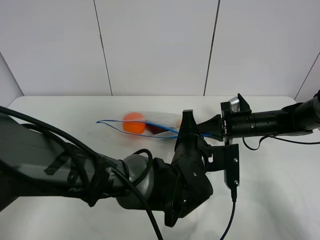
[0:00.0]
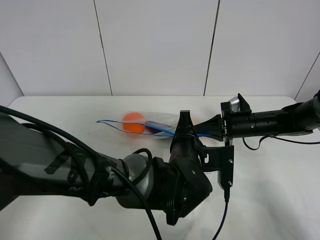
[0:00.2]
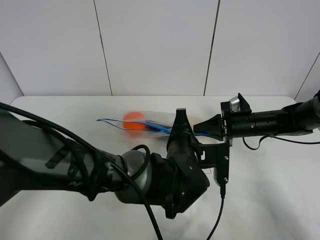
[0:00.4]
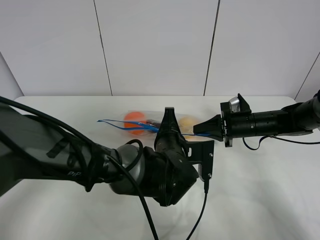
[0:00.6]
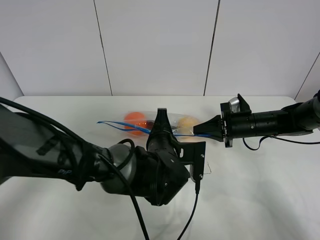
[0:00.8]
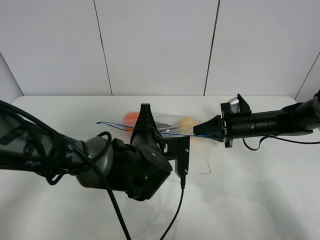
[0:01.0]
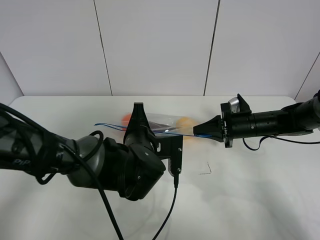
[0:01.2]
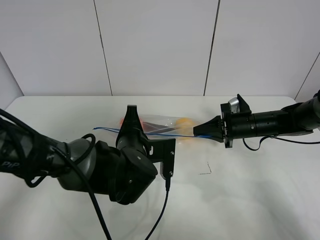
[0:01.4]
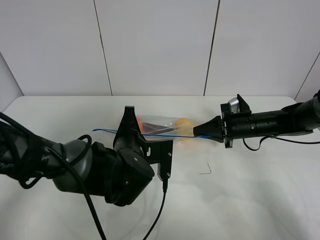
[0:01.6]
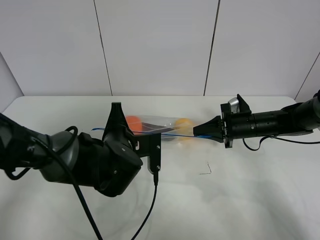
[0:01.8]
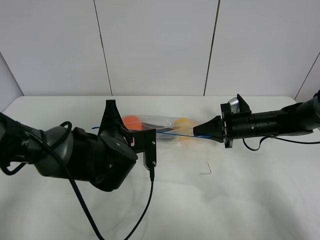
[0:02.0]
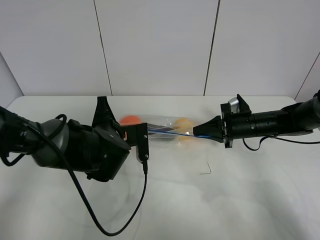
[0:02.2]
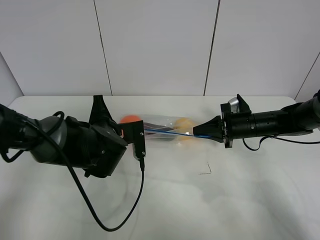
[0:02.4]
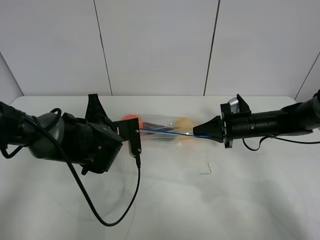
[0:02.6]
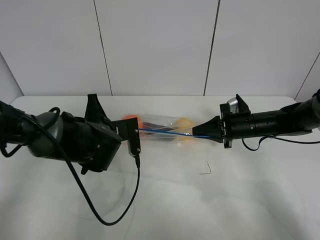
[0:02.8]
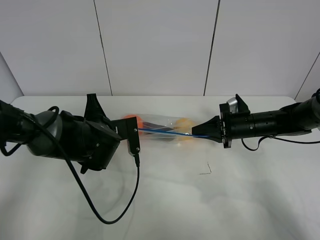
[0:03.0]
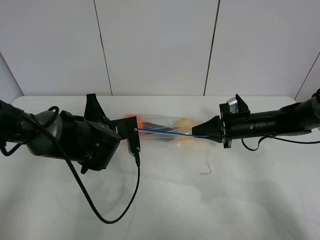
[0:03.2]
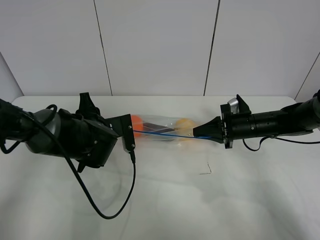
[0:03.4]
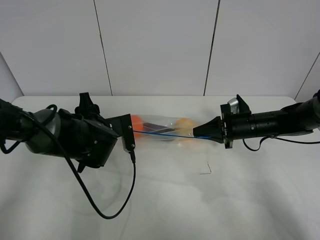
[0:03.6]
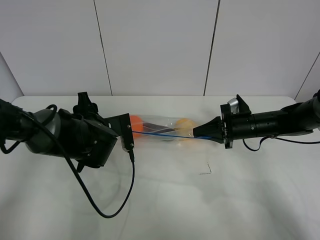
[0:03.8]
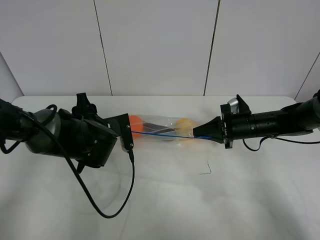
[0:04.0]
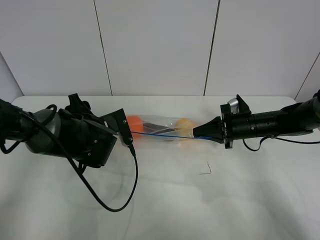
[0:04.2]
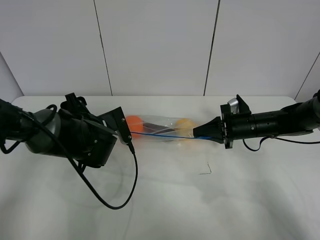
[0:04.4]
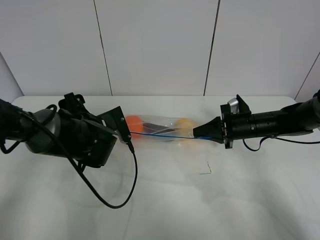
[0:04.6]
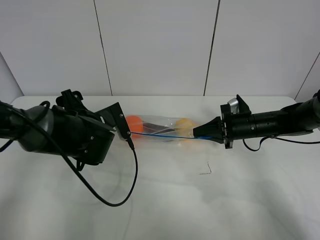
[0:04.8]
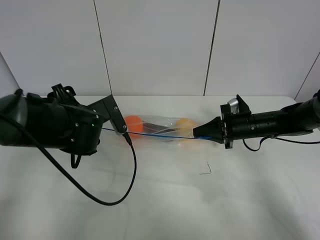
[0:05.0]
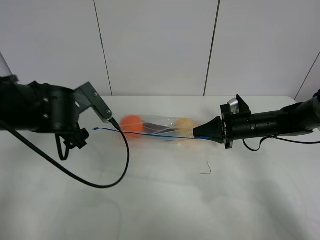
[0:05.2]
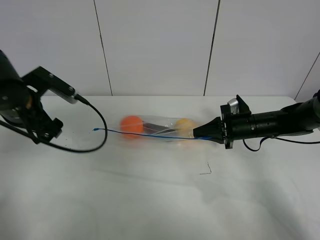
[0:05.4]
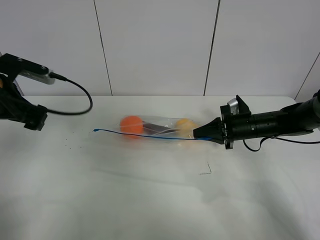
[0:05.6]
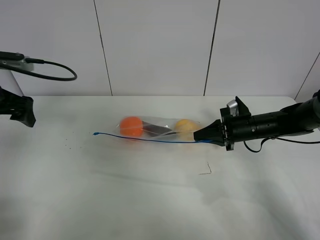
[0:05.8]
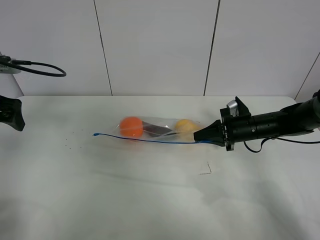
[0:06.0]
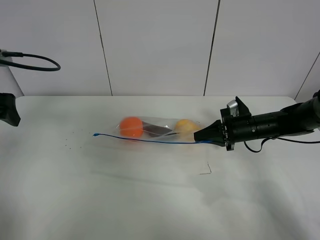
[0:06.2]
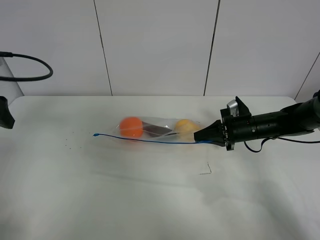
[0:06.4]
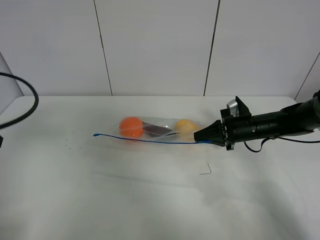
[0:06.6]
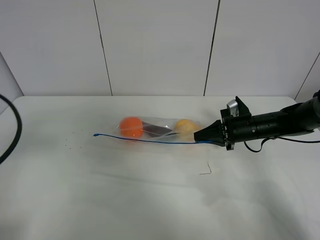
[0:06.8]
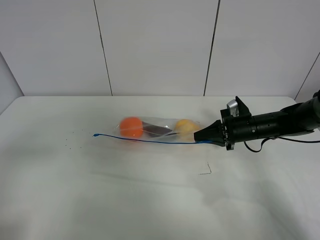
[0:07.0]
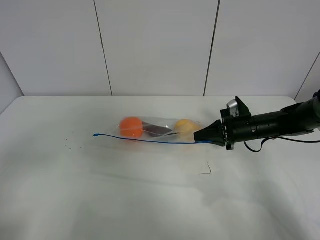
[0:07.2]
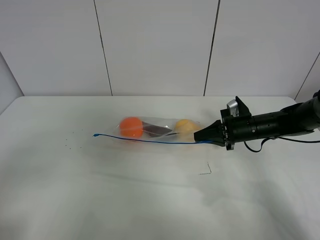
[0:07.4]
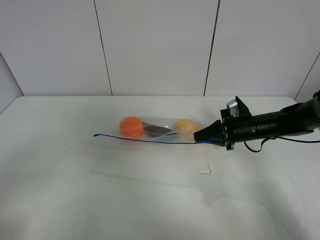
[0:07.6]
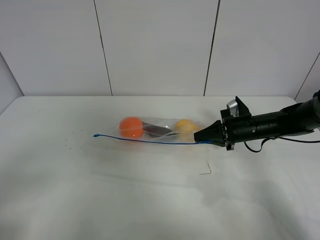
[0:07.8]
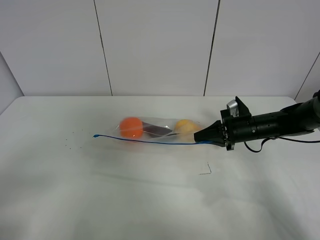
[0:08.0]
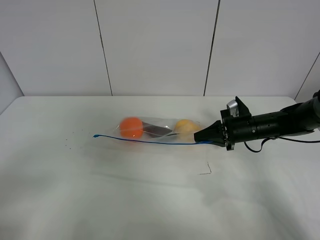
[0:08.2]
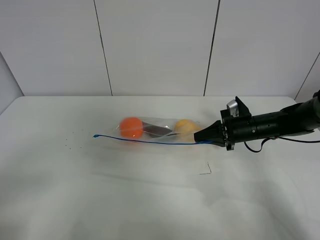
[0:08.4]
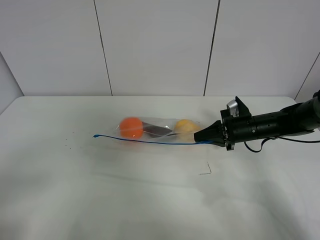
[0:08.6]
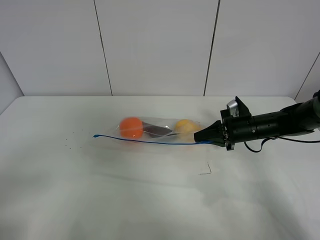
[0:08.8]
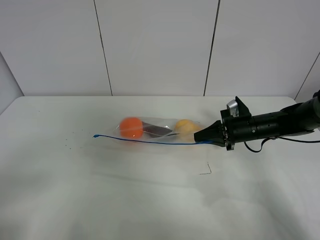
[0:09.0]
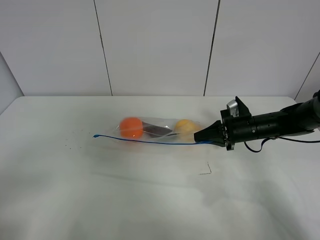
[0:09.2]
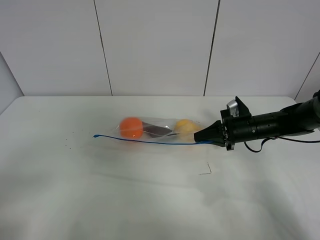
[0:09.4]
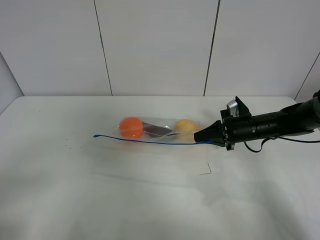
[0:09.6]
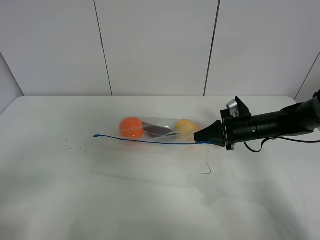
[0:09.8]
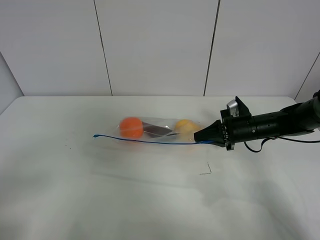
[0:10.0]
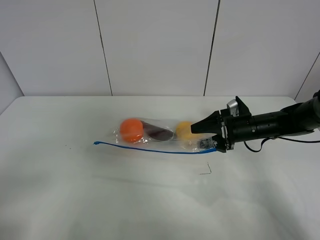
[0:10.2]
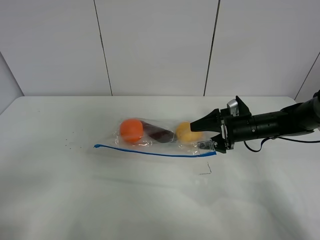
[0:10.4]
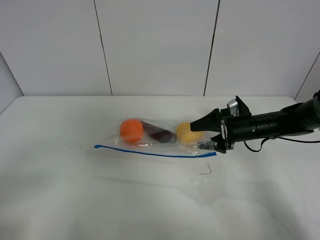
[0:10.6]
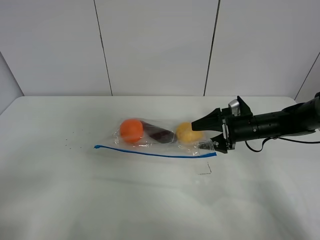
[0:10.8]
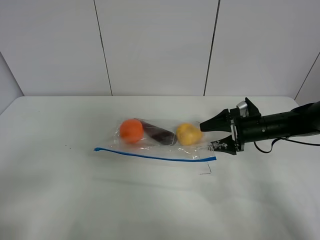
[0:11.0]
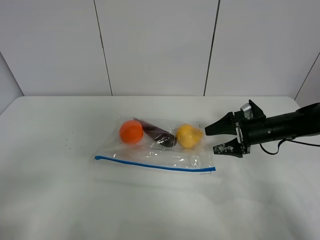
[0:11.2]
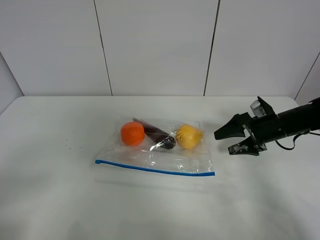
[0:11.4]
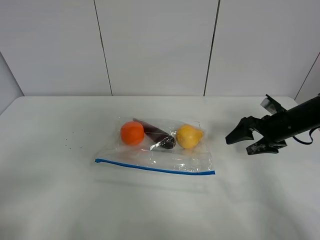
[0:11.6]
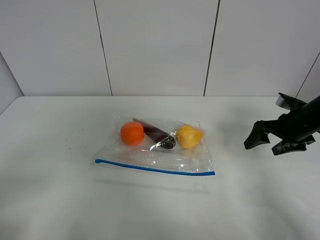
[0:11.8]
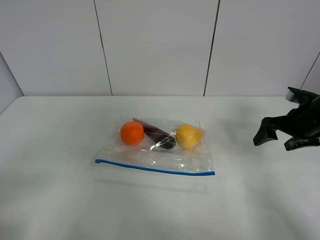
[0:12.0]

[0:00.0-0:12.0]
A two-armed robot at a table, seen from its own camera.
Step, 0:00.0 to 0:04.0: Pull the fruit bag with left gripper.
0:00.0 to 0:01.6: The left gripper heads to the left, covering approximately 10 cm.
0:01.6 to 0:03.0: The left gripper moves to the left, approximately 5 cm.
0:03.0 to 0:04.4: The left gripper opens.
0:04.4 to 0:06.0: The left gripper shifts some 25 cm to the left and upward.
0:06.0 to 0:07.6: The left gripper moves backward, approximately 30 cm.
0:09.0 to 0:10.4: The right gripper opens up.
0:10.4 to 0:12.0: The right gripper moves to the right and upward, roughly 15 cm.

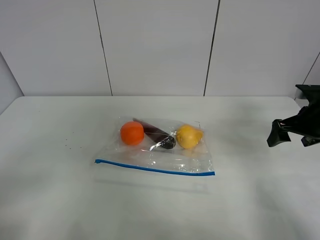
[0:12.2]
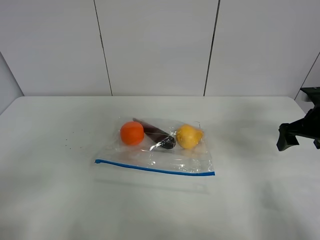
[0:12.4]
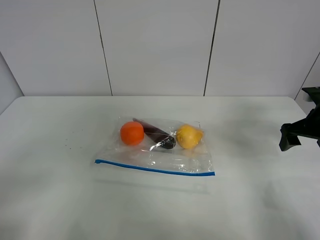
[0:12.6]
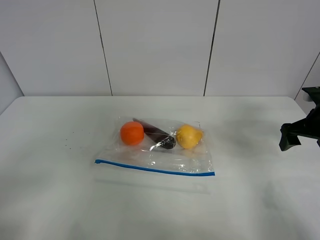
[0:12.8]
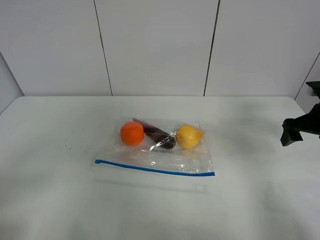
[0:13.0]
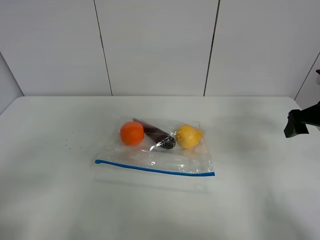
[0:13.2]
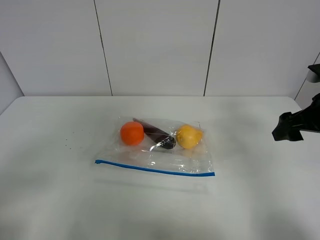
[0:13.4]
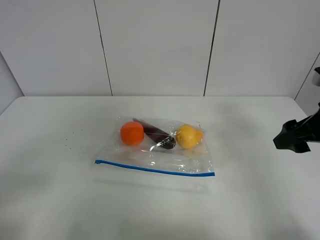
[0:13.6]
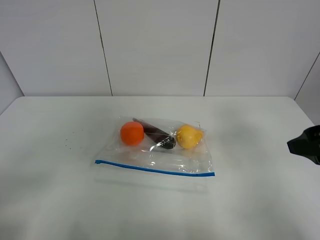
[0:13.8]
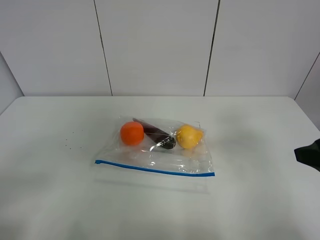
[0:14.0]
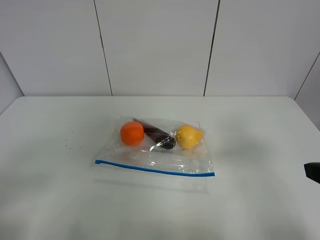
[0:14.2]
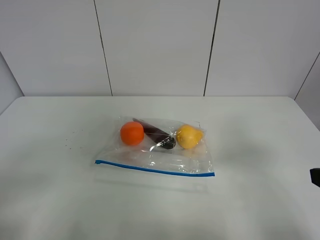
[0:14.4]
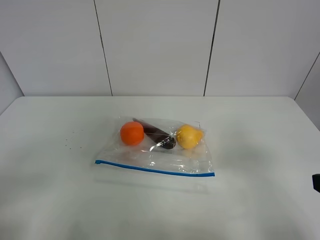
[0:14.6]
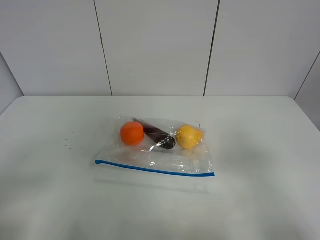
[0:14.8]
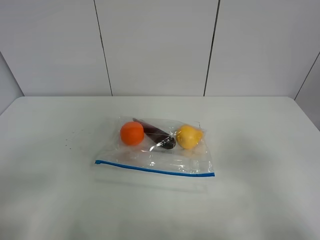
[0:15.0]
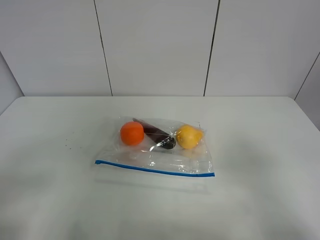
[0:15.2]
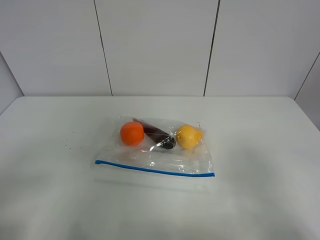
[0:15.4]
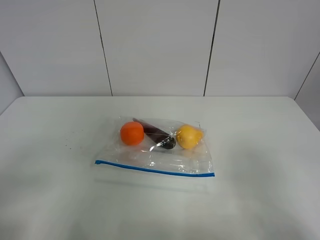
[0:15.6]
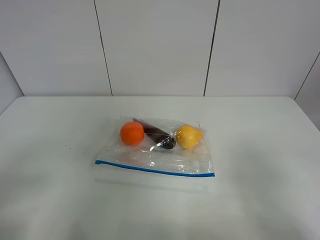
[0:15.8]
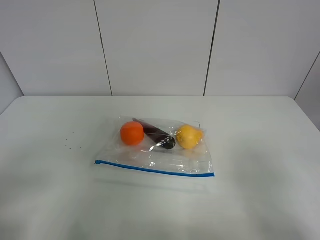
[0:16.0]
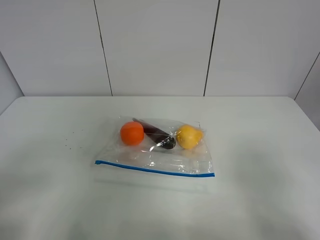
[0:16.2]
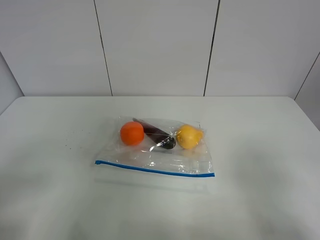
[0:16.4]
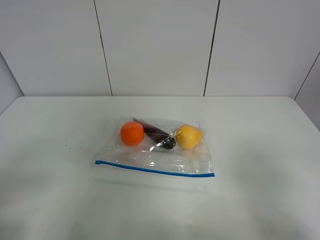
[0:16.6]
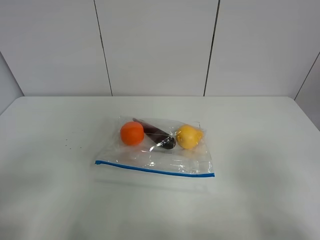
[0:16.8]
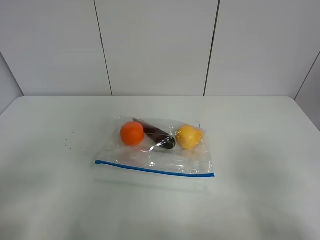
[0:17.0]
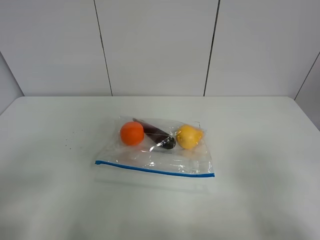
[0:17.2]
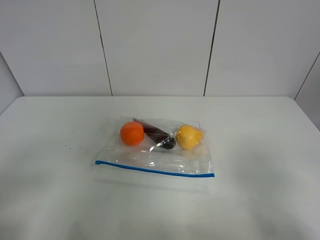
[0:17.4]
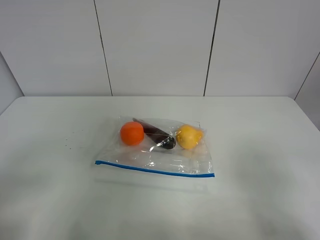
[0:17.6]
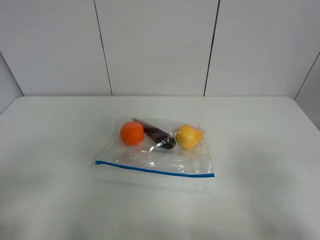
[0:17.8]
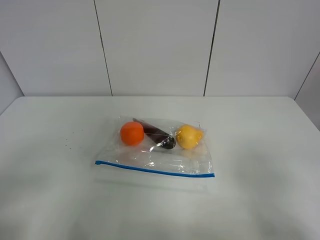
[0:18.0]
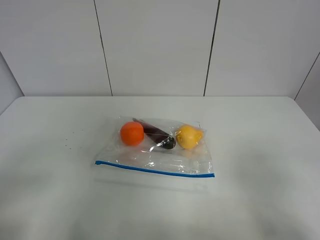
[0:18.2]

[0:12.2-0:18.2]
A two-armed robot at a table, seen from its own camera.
0:12.2 to 0:13.8: The right gripper goes some 20 cm backward and upward.
0:13.8 to 0:15.2: The right gripper shifts some 15 cm backward.
0:16.6 to 0:18.2: Neither gripper changes place.

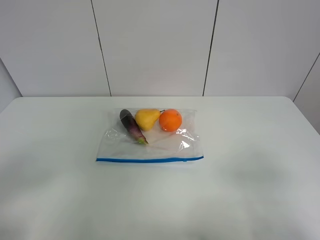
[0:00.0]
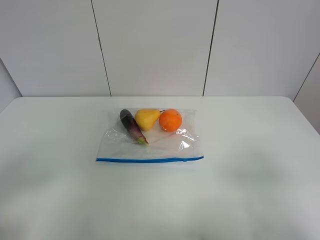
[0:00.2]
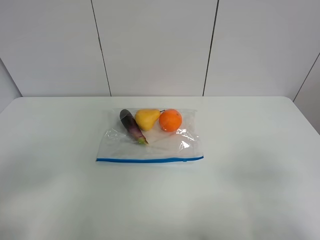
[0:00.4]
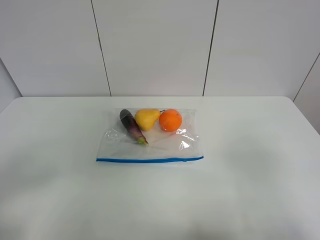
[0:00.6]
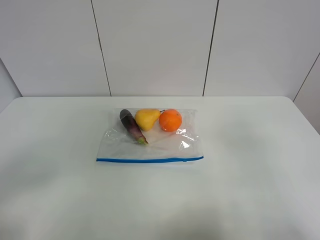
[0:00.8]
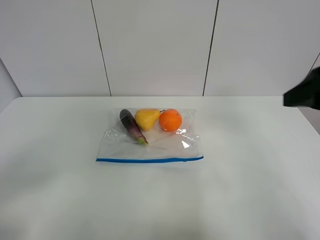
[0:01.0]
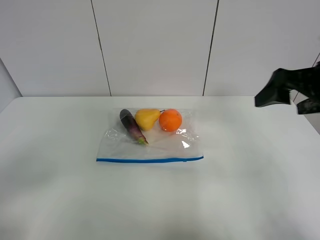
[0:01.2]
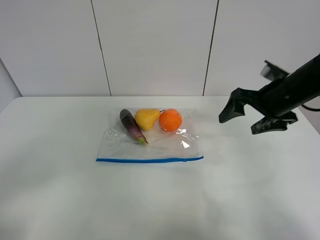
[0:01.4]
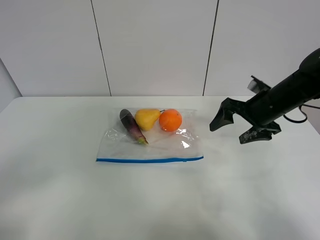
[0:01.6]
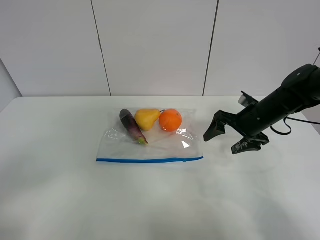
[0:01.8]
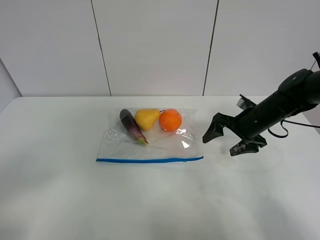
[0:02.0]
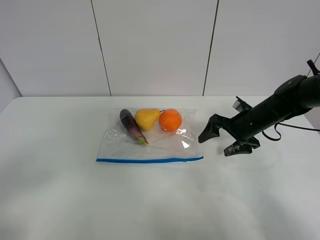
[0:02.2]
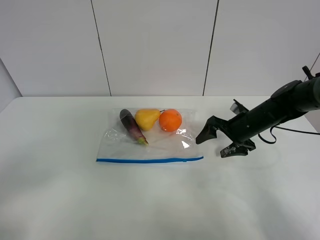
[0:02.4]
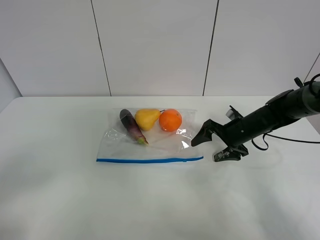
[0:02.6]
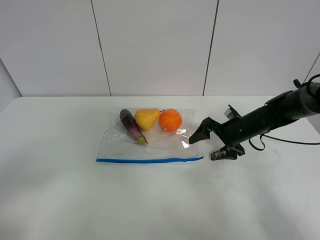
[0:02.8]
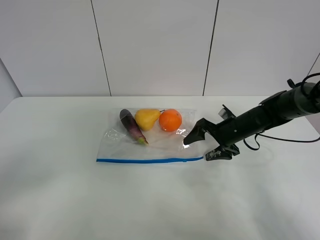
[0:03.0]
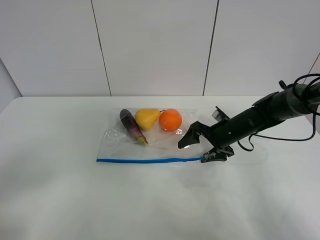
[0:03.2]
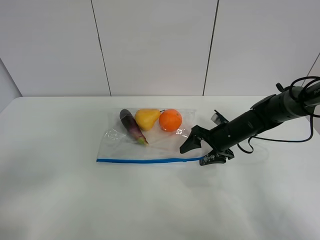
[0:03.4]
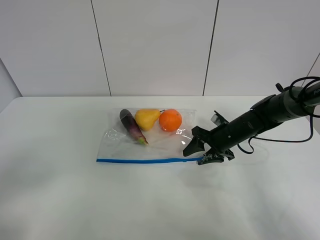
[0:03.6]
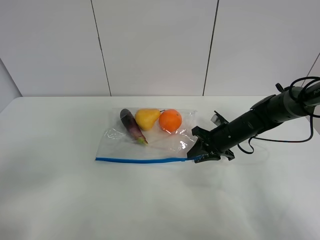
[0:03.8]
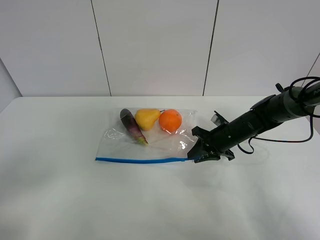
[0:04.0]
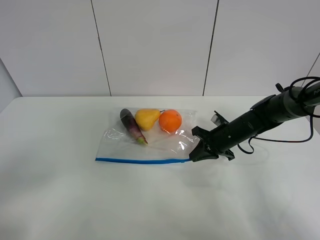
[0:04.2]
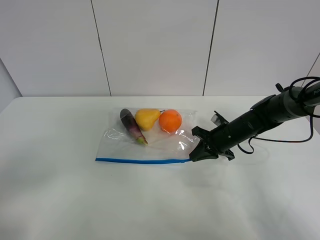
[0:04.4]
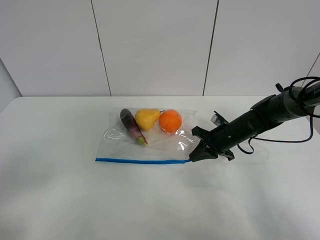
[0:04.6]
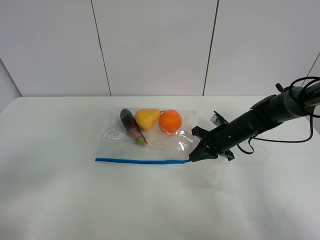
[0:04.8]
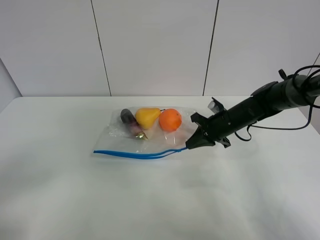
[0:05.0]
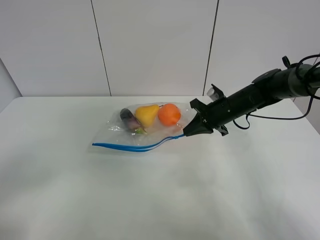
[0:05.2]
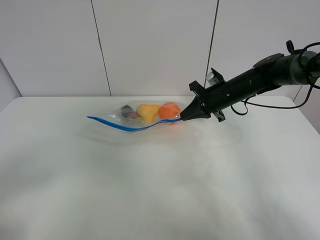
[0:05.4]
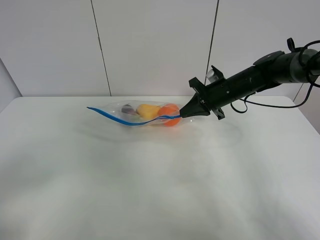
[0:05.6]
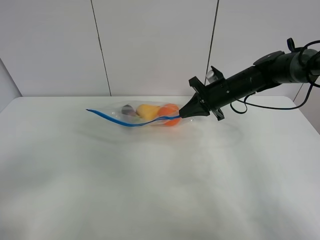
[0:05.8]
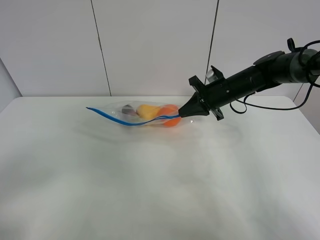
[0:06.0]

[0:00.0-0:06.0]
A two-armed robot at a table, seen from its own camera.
Step, 0:00.0 to 0:04.4: Grasp the fruit bag with right gripper.
0:00.0 to 0:01.6: The right gripper is displaced forward by approximately 35 cm.
0:01.6 to 0:03.0: The right gripper heads downward, covering about 10 cm.
0:03.0 to 0:04.4: The right gripper closes its fingers.
0:04.4 to 0:06.0: The right gripper travels upward and forward by about 10 cm.
